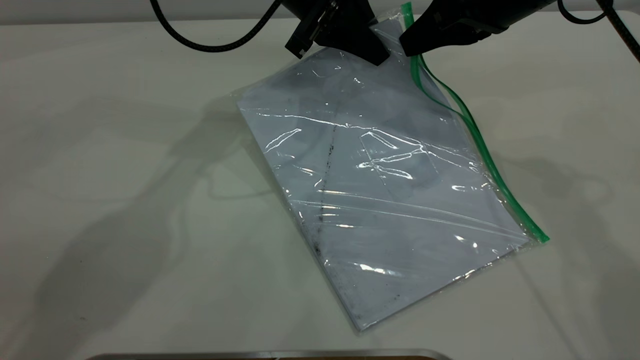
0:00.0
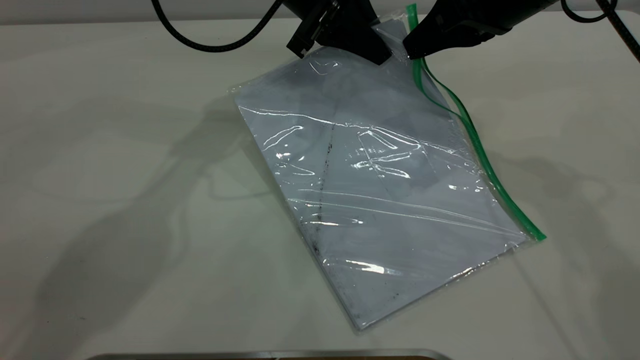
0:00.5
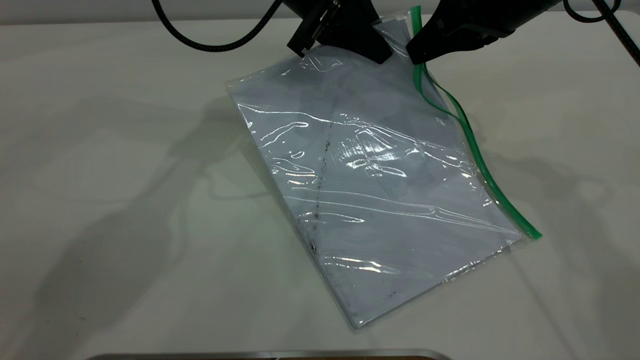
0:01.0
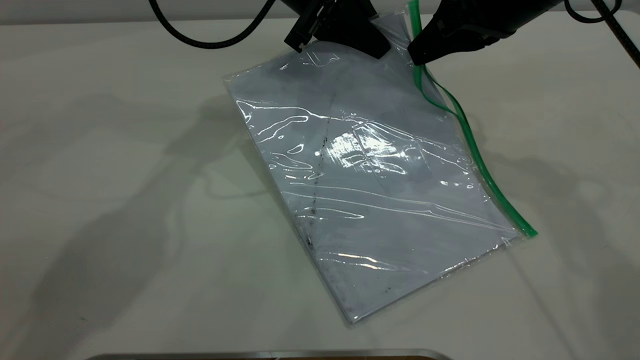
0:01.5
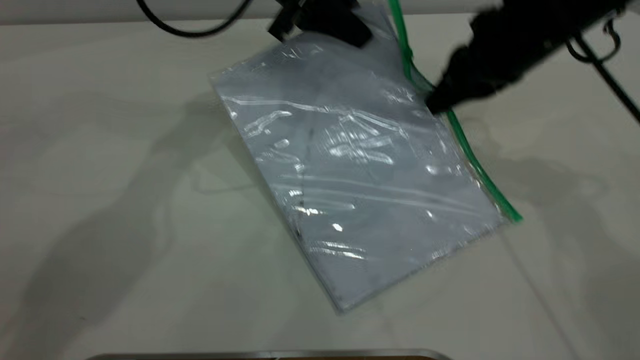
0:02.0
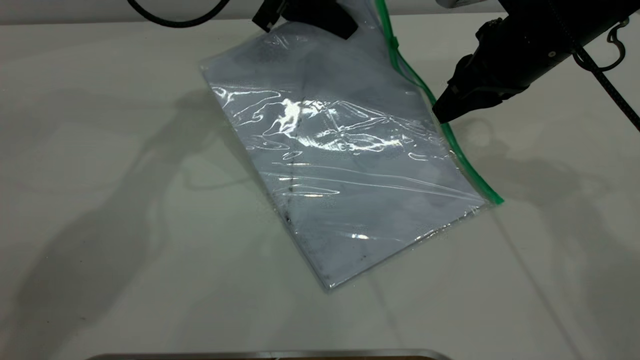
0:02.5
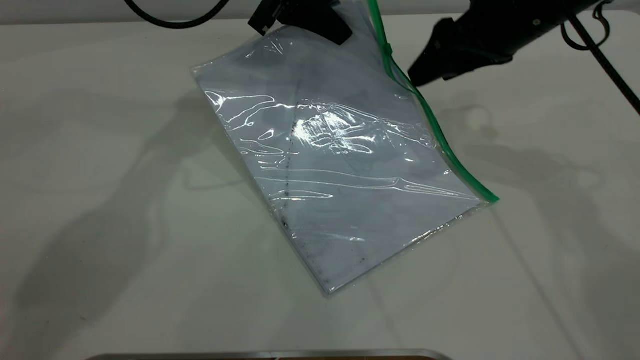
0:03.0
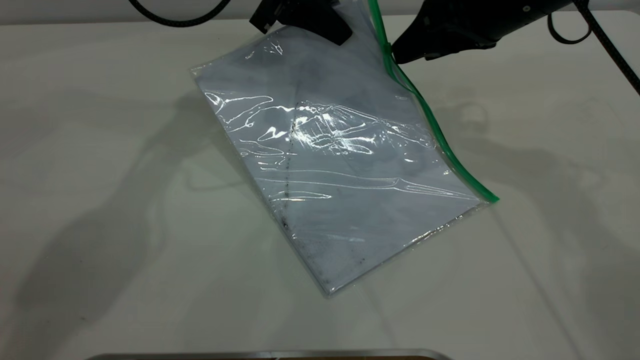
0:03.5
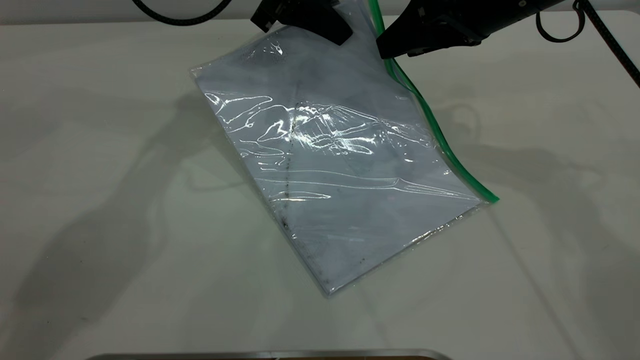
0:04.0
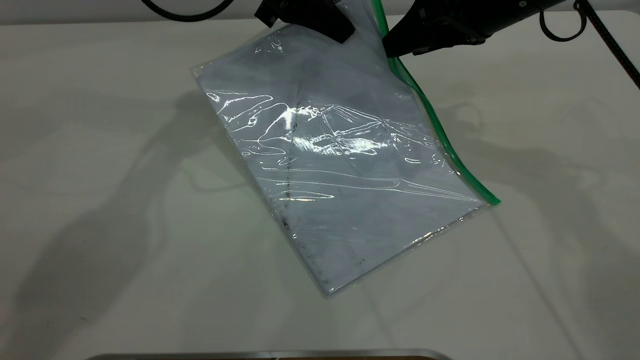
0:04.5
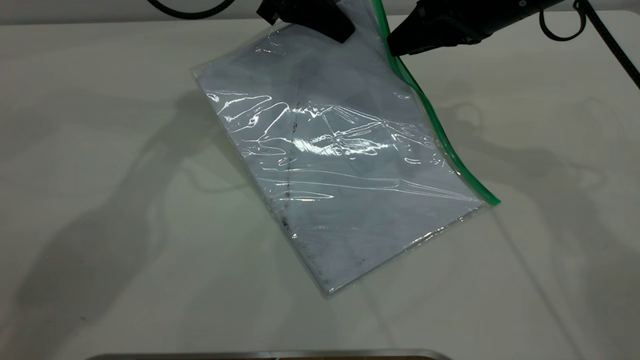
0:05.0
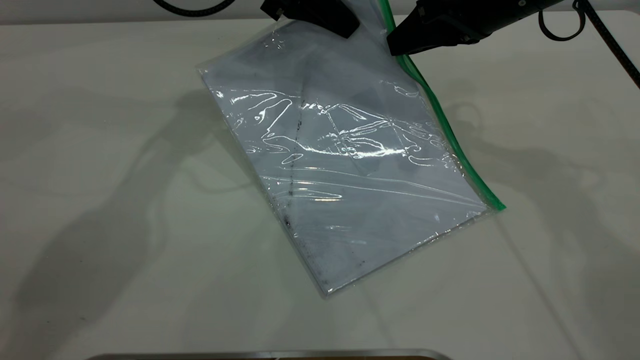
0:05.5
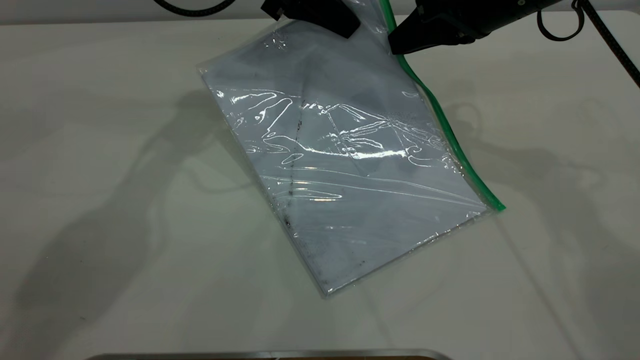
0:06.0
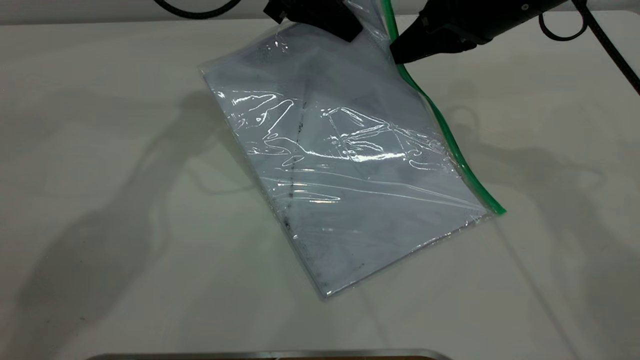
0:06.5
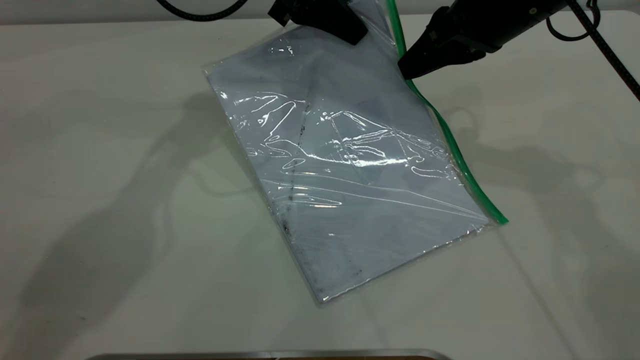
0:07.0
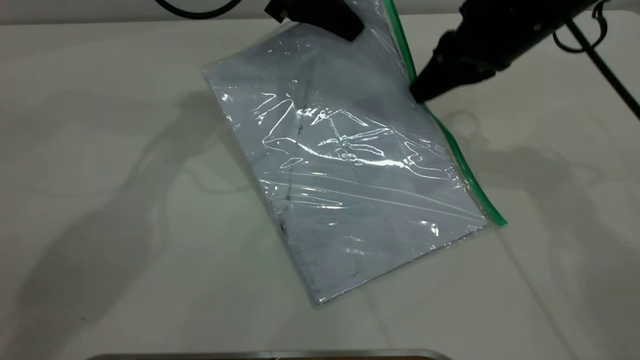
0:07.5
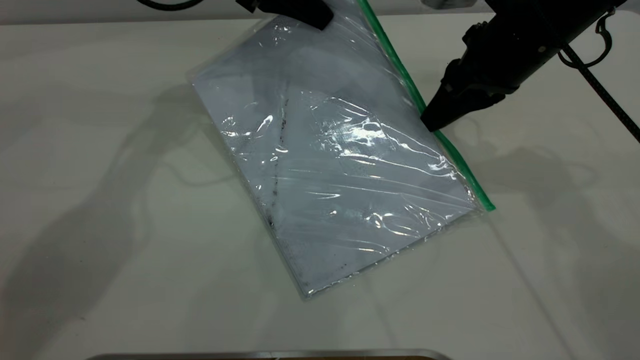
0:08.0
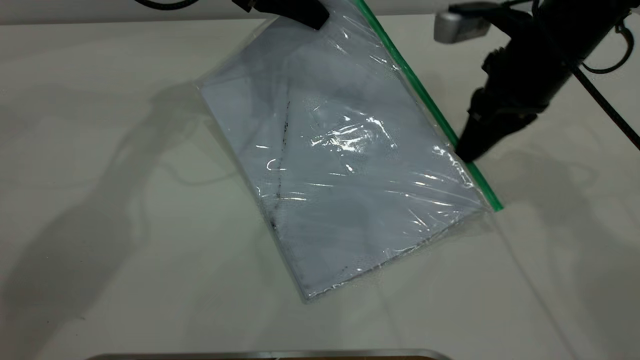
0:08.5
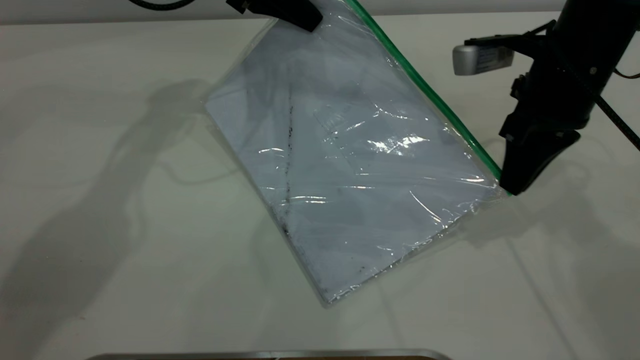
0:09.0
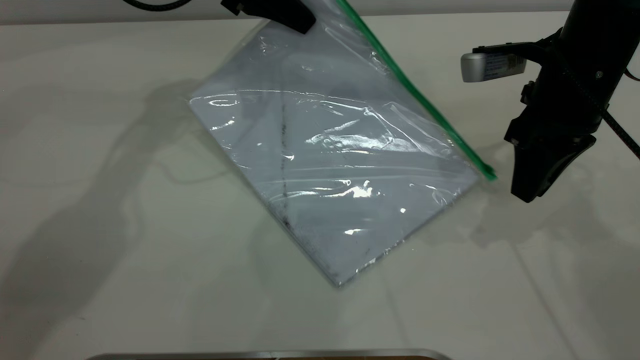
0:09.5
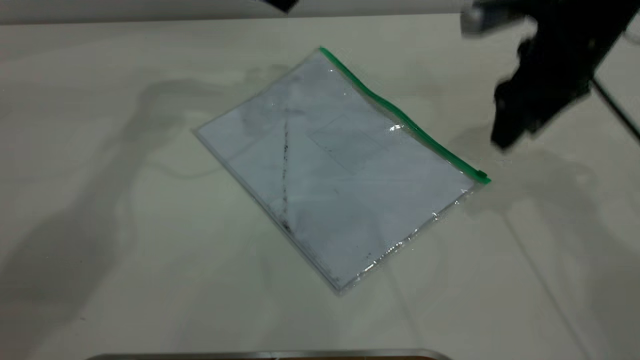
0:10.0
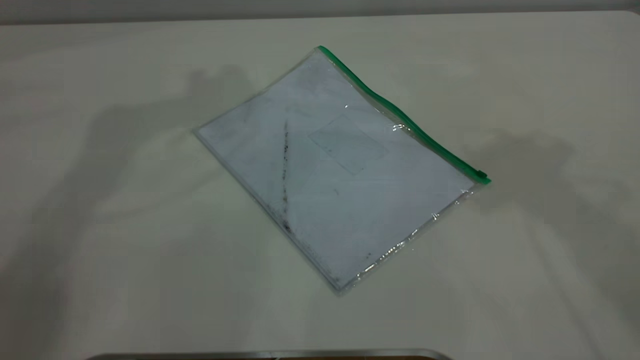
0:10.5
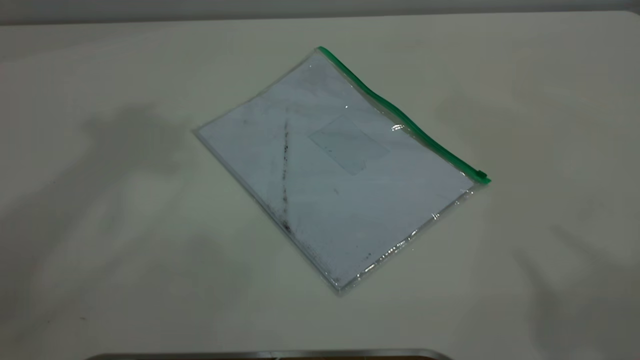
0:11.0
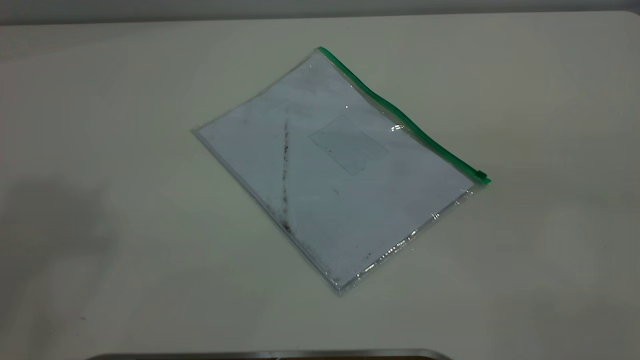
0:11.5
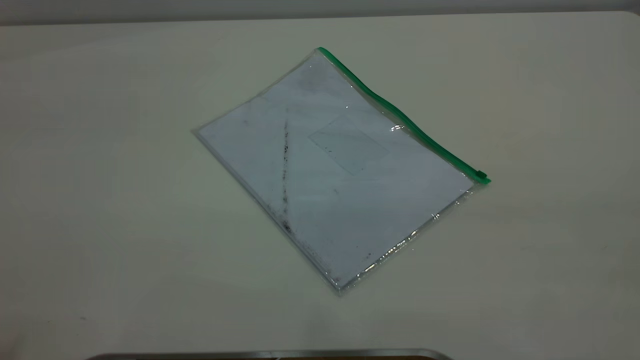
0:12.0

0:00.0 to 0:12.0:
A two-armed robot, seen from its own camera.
Step, 0:00.0 to 0:09.5: Pulling up the zipper on the transparent plastic bag with the right gripper to close it.
0:00.0 to 0:02.0: There are only small adjustments of the grippers.
0:02.0 to 0:04.0: The right gripper opens up.
0:04.0 to 0:06.0: The right gripper closes its fingers.
0:08.0 to 0:10.0: The left gripper ends up approximately 5 cm from where it was, and opens; the right gripper opens up.
0:10.0 to 0:12.0: The right gripper moves backward and upward, approximately 40 cm.
